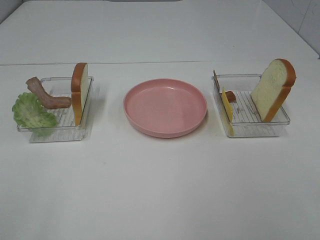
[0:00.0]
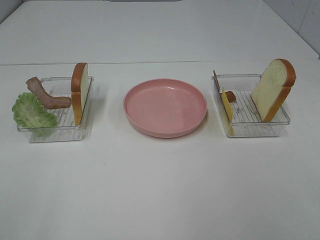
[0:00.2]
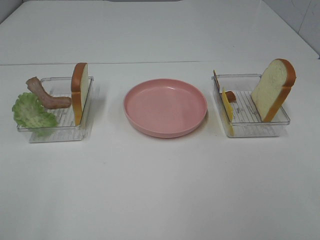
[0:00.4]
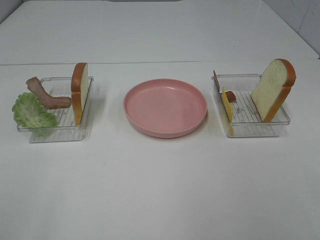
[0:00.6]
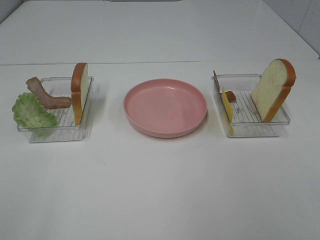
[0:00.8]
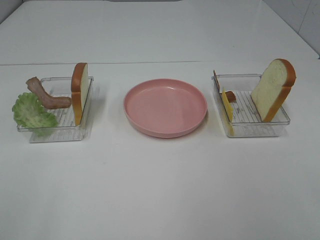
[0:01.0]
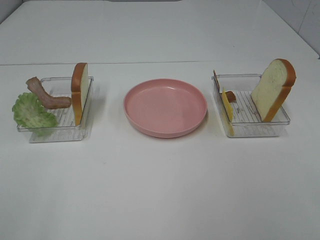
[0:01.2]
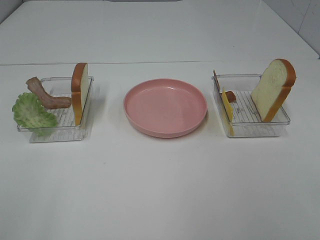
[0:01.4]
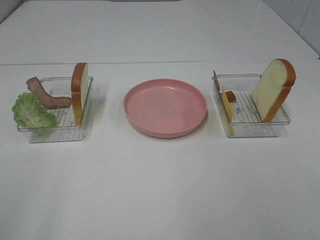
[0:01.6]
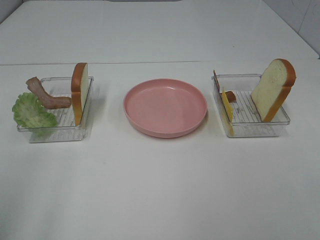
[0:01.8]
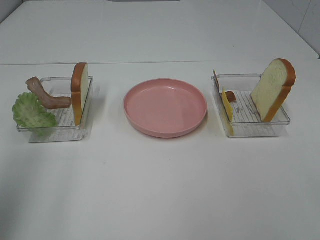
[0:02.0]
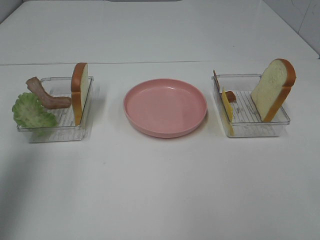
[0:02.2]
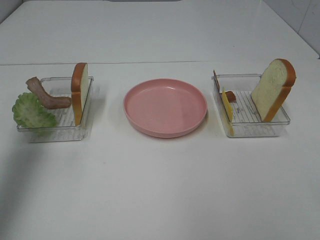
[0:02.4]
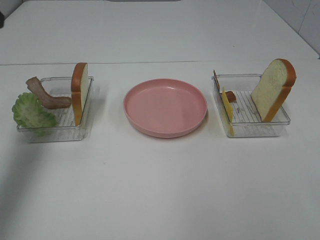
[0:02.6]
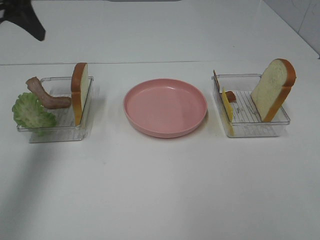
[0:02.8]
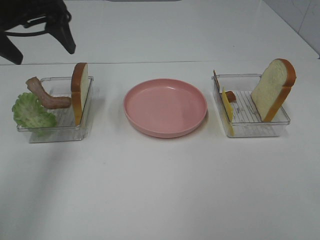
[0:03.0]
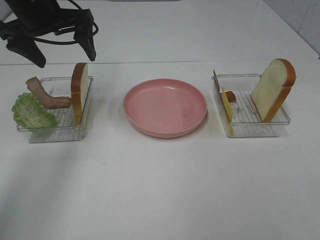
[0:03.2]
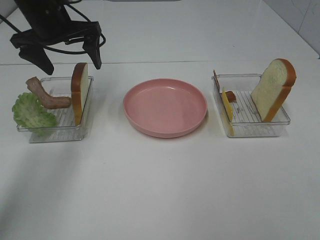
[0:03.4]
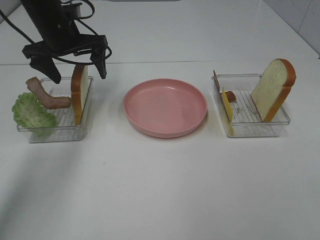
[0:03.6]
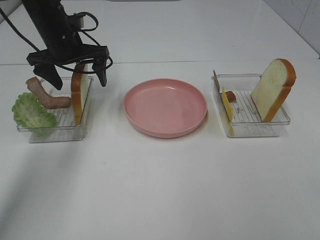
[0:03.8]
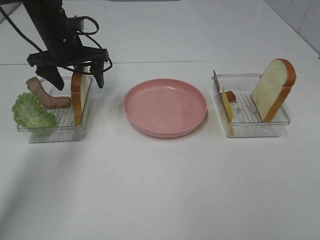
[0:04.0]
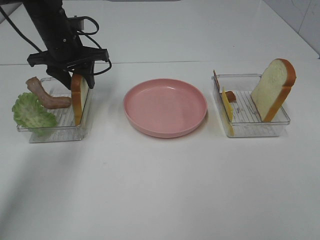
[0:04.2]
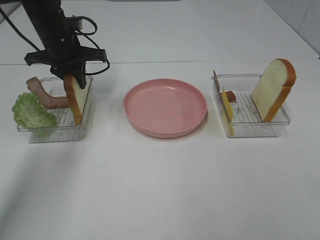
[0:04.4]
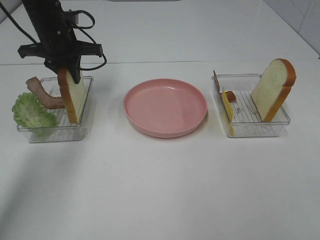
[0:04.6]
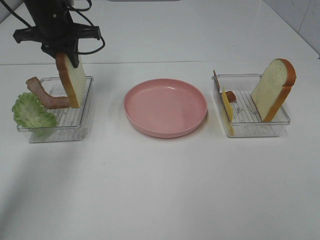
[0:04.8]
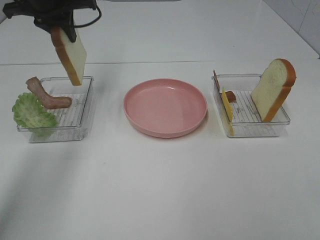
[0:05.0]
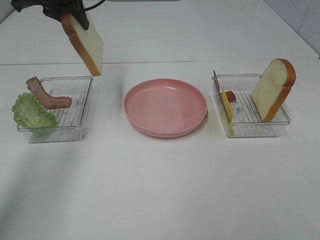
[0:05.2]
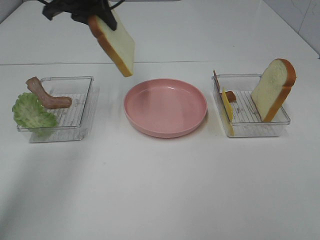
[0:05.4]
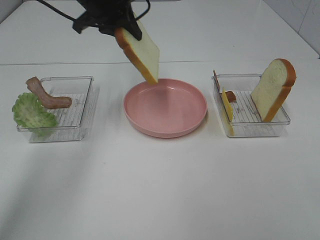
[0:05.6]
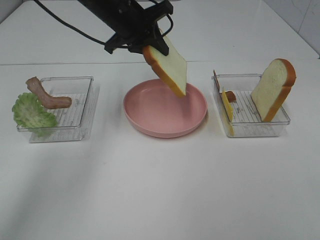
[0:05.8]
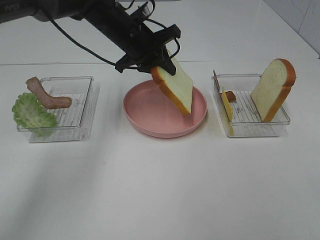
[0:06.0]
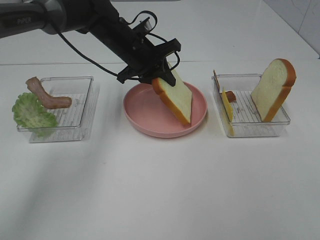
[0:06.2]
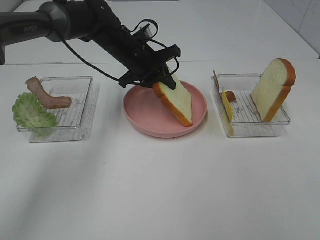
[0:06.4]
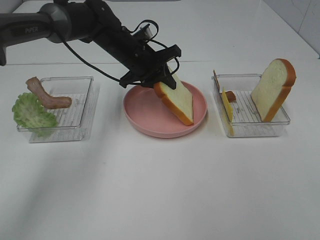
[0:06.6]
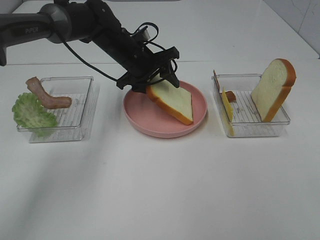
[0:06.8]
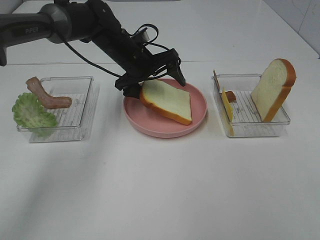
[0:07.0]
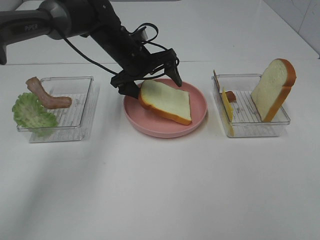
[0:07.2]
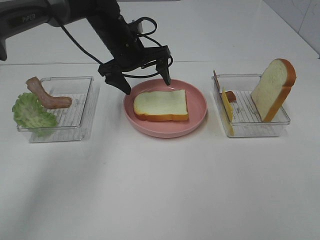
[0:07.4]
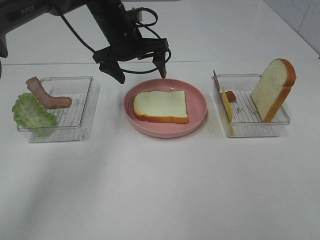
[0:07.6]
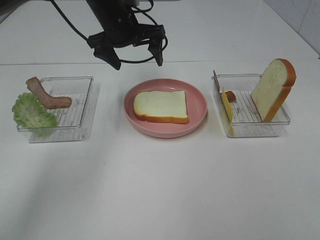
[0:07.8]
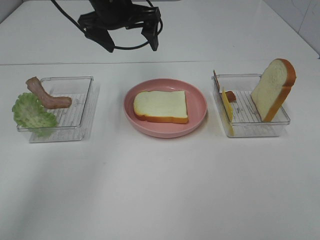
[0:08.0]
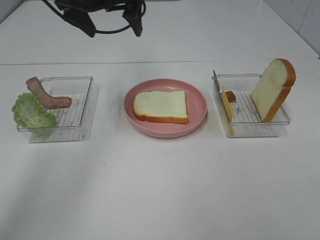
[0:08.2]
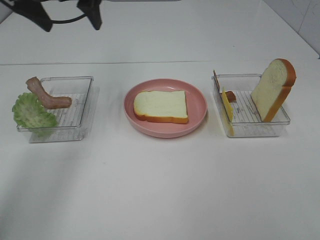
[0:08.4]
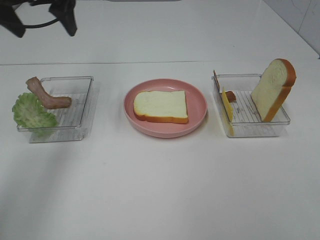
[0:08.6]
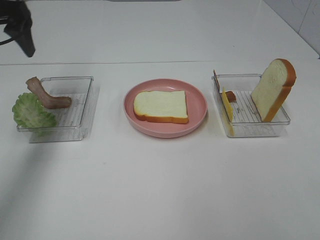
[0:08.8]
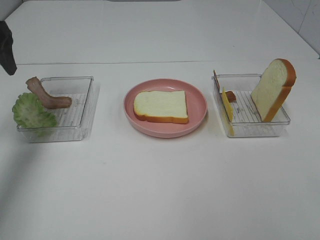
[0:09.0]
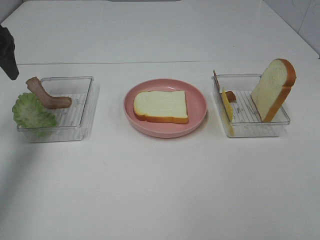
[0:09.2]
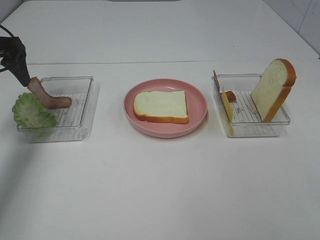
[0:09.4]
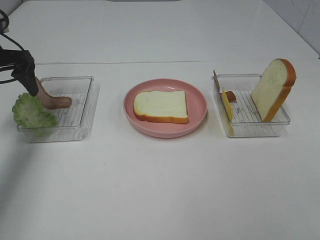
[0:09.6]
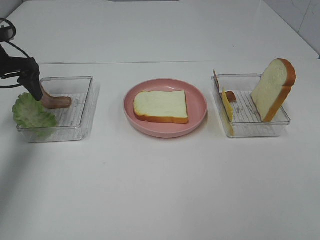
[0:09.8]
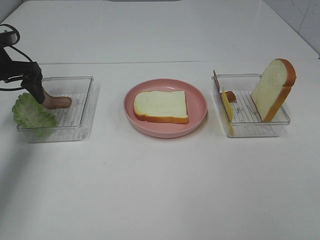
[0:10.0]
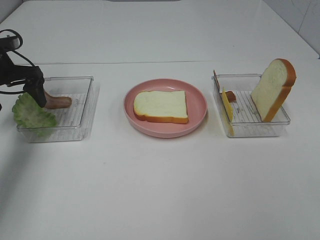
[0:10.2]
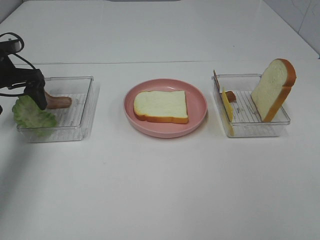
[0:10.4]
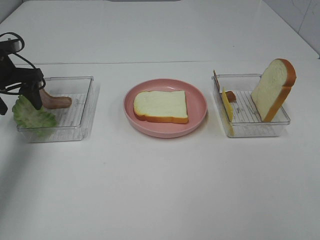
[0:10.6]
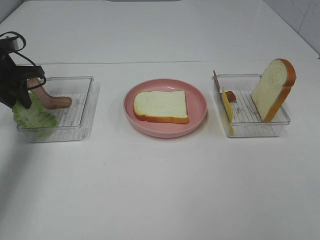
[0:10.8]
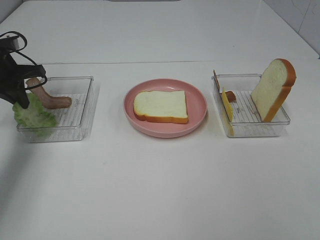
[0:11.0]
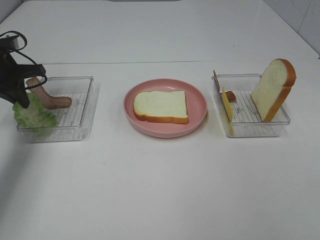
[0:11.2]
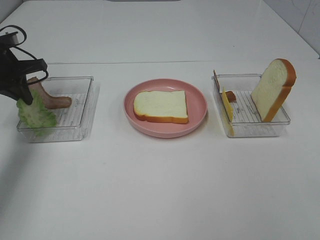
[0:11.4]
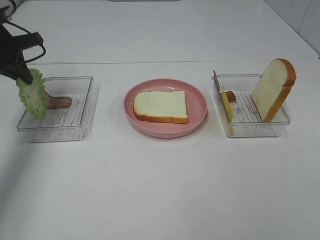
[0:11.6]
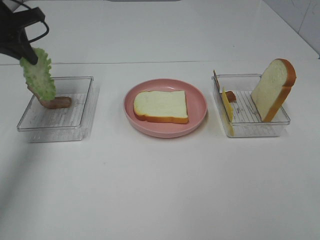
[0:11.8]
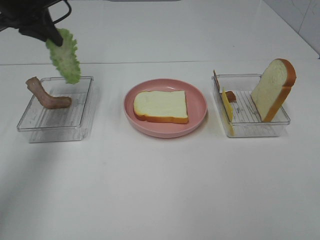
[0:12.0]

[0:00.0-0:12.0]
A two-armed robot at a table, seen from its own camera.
Task of the whole recording: Make sandwiches.
Step, 0.0 to 4.6 s: Left hand:grab the bread slice.
Step, 4.8 to 7.8 s: Left hand:place the bread slice on the plate.
Step, 8.0 to 11.4 s: Left hand:grab the lettuce slice.
1.6 to 3.0 s: The left gripper shifts roughly 35 cm forward.
3.0 to 4.4 s: The left gripper moves downward and forward, roughly 15 cm, and closes.
4.4 to 6.0 s: The left gripper heads to the right, covering about 15 cm.
6.0 to 7.6 s: The left gripper opens its fingers.
7.6 to 9.0 s: The left gripper goes approximately 25 cm to the left.
9.0 to 10.4 s: The left gripper is displaced downward by approximately 10 cm.
10.4 to 12.0 s: The left gripper shifts approximately 15 cm upward and to the right, and closes its fingers.

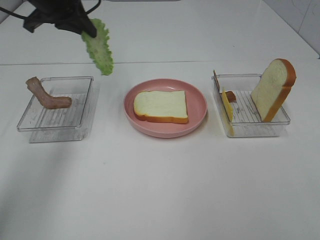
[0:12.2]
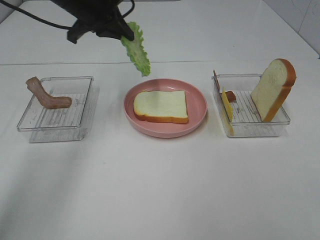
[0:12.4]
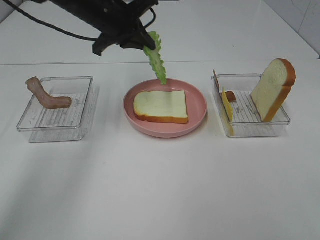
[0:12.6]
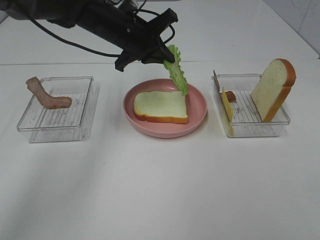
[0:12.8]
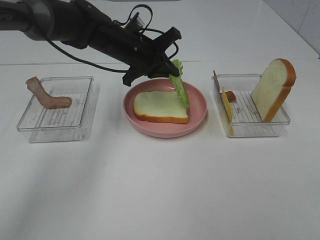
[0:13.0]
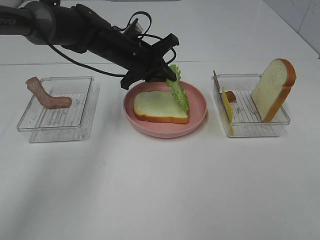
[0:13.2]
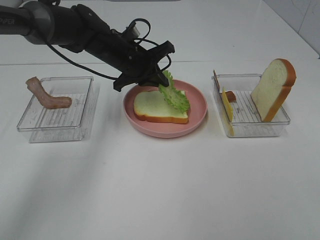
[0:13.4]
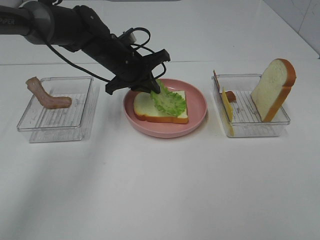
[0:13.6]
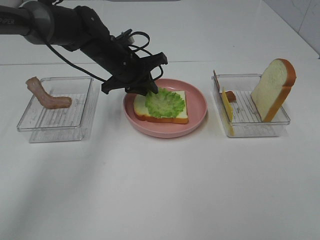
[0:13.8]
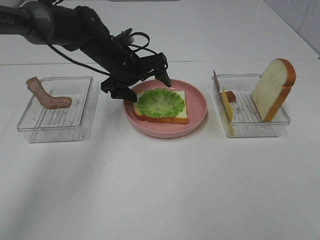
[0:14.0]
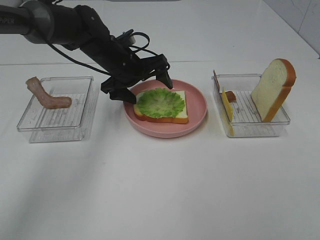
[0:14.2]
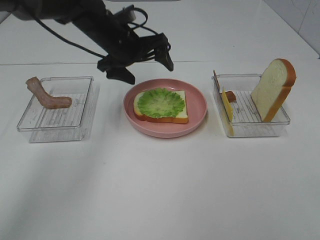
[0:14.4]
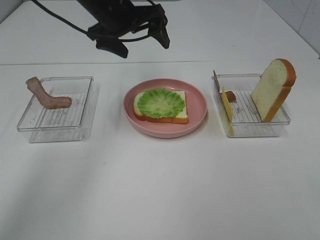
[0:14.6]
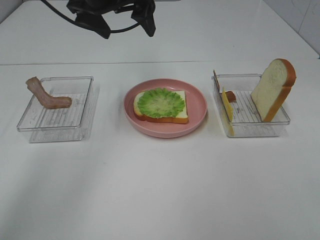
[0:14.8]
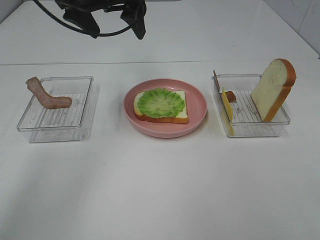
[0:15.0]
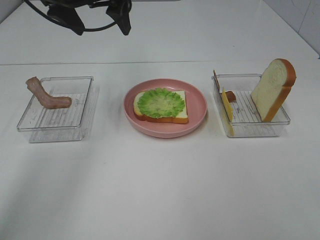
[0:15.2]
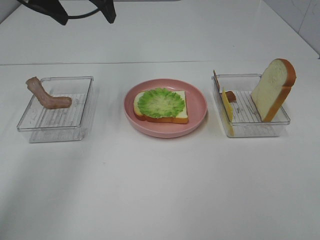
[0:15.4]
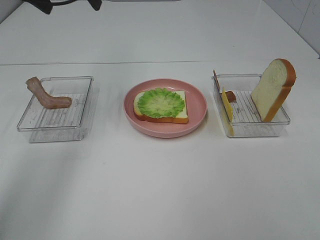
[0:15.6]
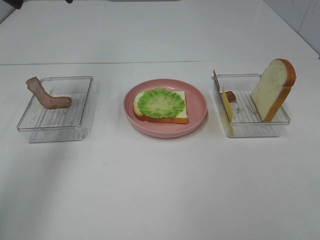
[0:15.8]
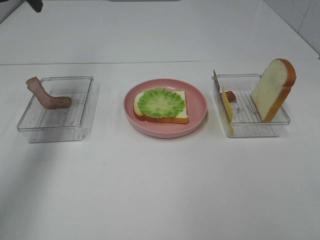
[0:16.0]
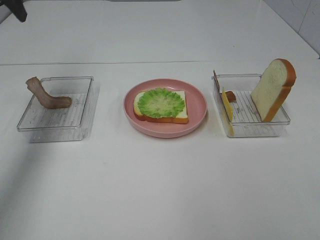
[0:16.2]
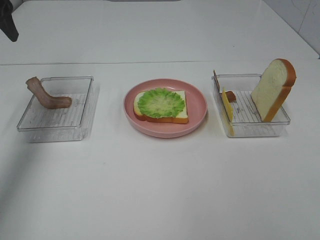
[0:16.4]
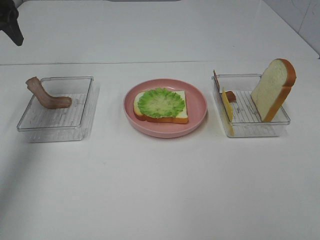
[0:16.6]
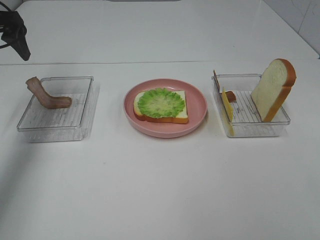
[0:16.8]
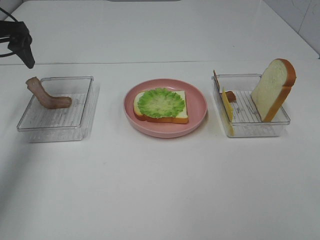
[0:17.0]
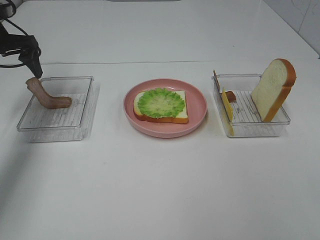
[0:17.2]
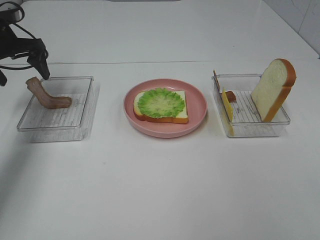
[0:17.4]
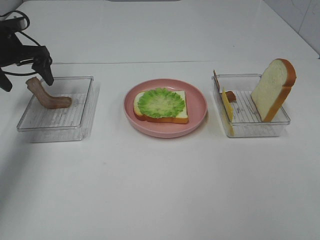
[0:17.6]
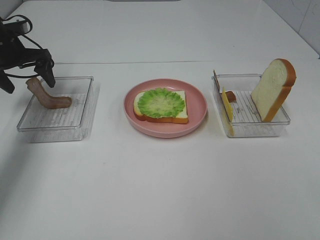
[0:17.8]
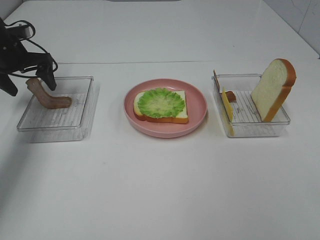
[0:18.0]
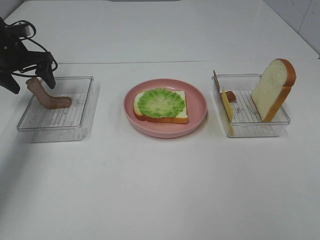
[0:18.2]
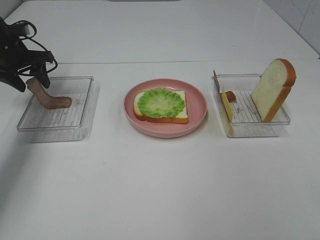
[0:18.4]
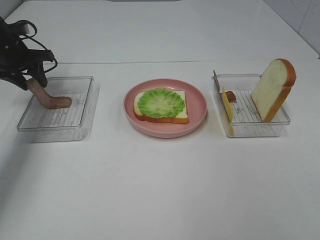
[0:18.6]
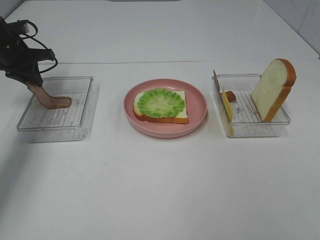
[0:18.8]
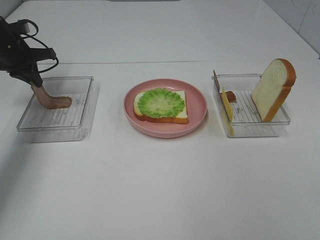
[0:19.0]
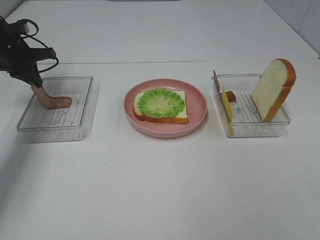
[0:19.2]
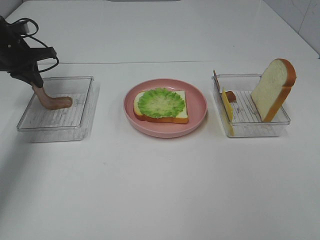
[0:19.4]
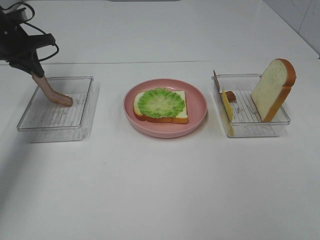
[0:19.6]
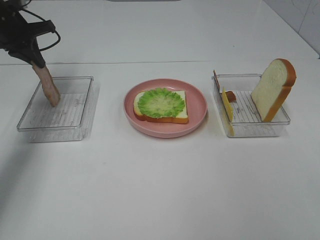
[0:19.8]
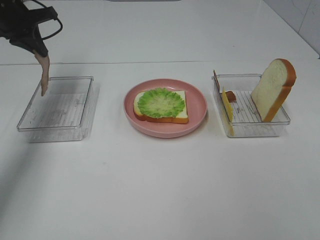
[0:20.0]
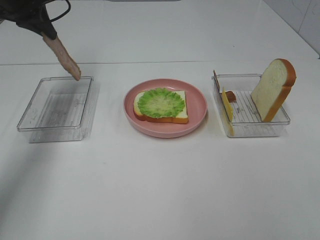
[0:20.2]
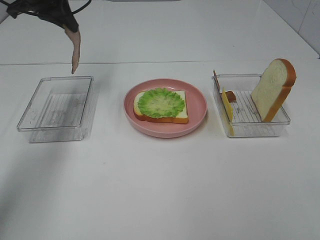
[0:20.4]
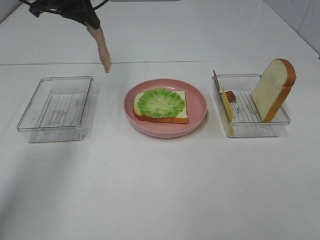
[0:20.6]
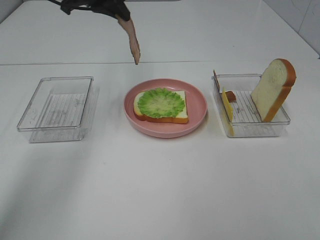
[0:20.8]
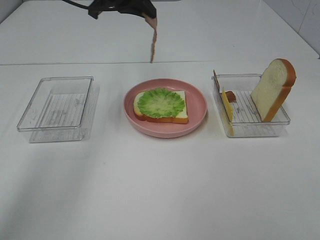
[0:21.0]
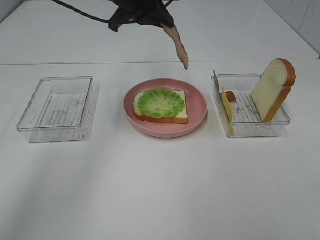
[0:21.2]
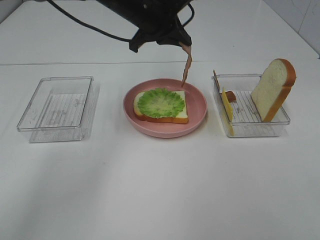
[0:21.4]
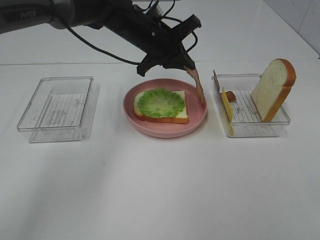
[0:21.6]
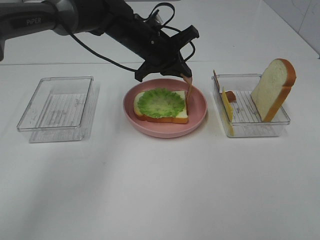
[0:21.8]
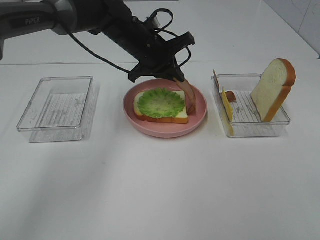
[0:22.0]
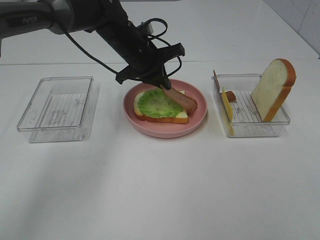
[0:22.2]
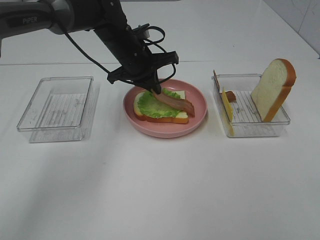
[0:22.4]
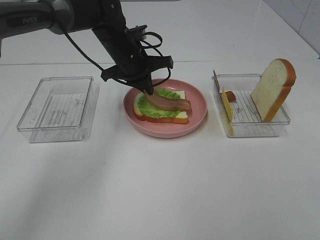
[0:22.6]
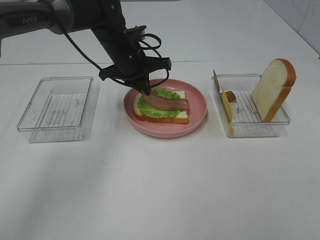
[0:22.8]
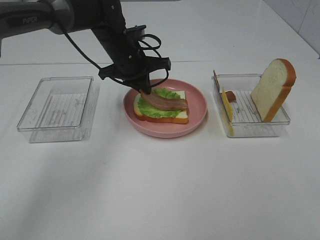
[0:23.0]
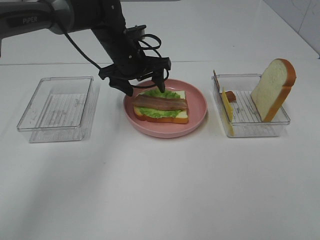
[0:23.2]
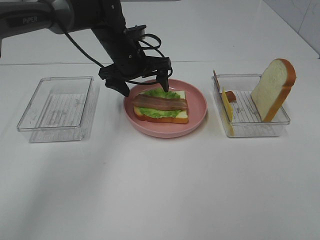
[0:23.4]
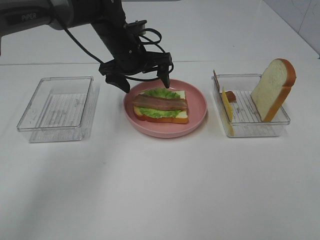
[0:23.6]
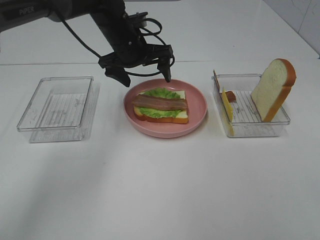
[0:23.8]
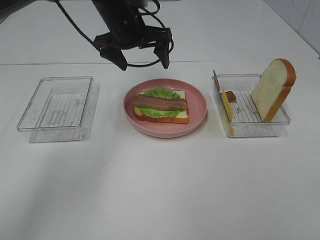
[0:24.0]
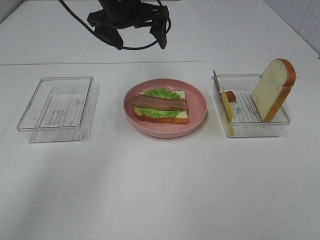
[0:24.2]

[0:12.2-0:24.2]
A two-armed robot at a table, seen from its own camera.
Task of the whole recording: Make sandwiches.
Step, 12.2 to 14.4 s: Left hand:place the lettuce slice on the bread slice.
Step, 14.6 to 19.4 s: Left hand:grab the bacon.
Step, 19.6 to 23.4 s: Left hand:place bacon on lettuce slice.
12.2 to 13.8 s: The left gripper travels downward and to the right by some 20 cm.
13.8 to 15.2 s: The left gripper travels upward by roughly 20 cm, and opens up.
15.2 to 16.6 s: The left gripper moves to the left, about 20 cm.
16.6 to 18.2 s: The left gripper moves downward and forward, some 15 cm.
18.2 to 19.8 s: The left gripper moves upward, roughly 5 cm, and closes up.
19.8 to 21.2 s: The left gripper moves to the right, about 25 cm.
21.2 to 22.6 s: The left gripper moves downward, about 10 cm.
22.6 to 24.2 s: The left gripper goes about 10 cm upward, and opens up.
